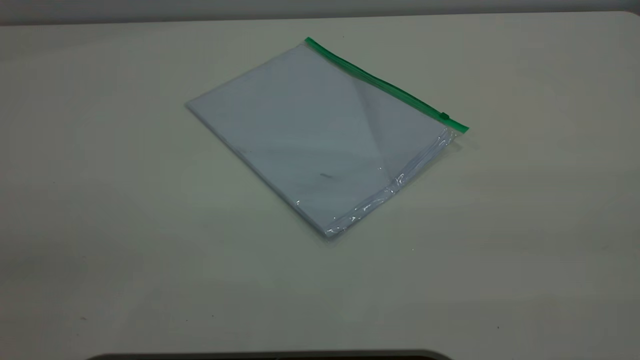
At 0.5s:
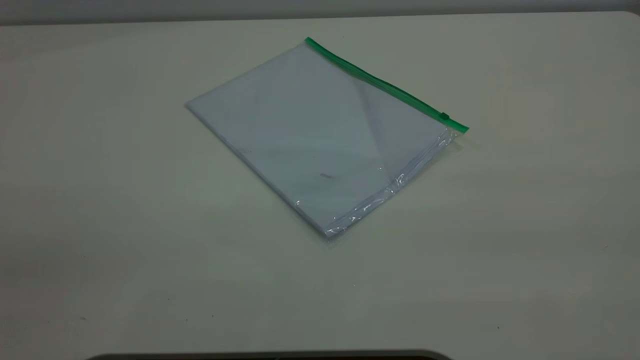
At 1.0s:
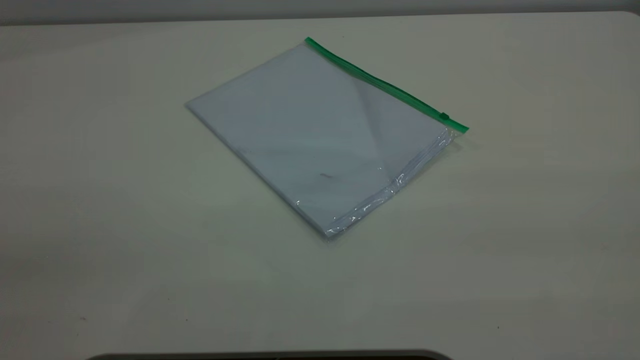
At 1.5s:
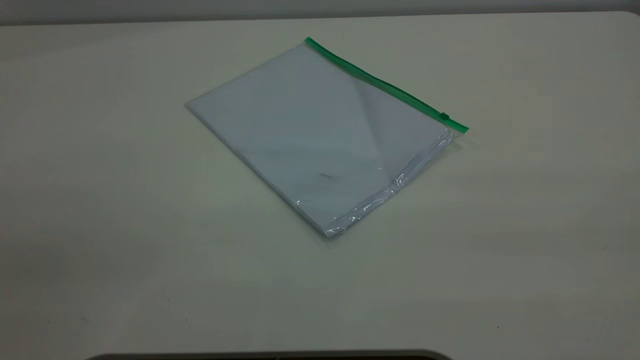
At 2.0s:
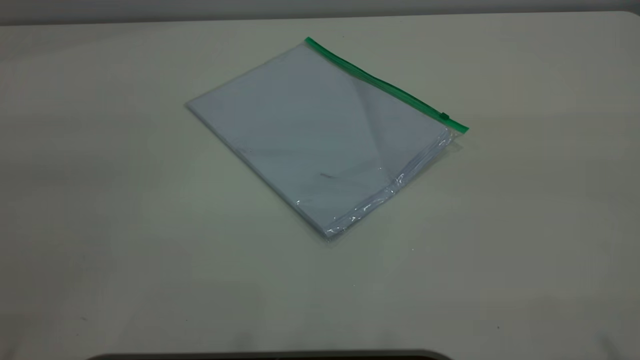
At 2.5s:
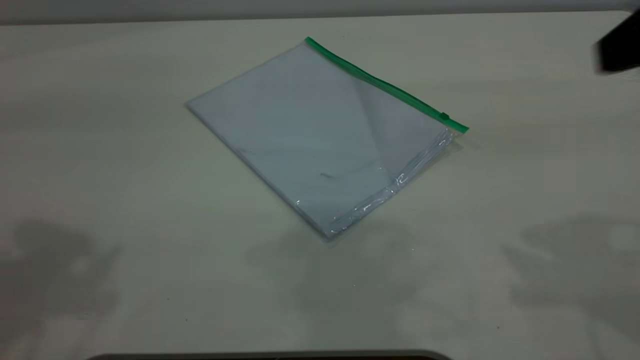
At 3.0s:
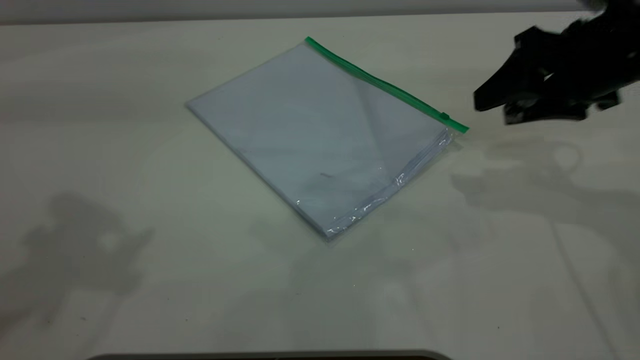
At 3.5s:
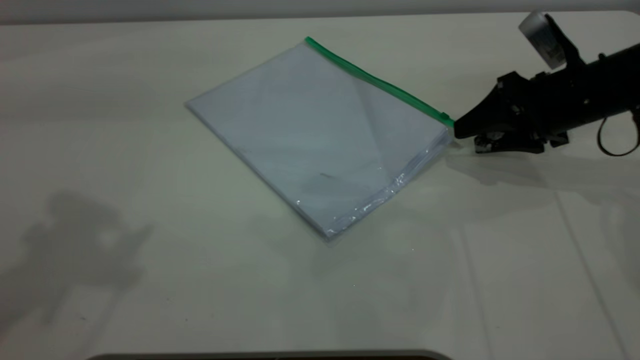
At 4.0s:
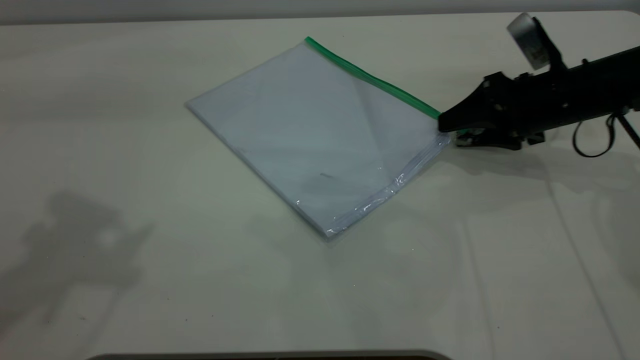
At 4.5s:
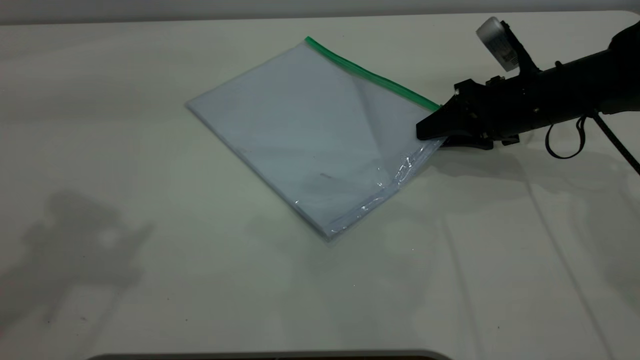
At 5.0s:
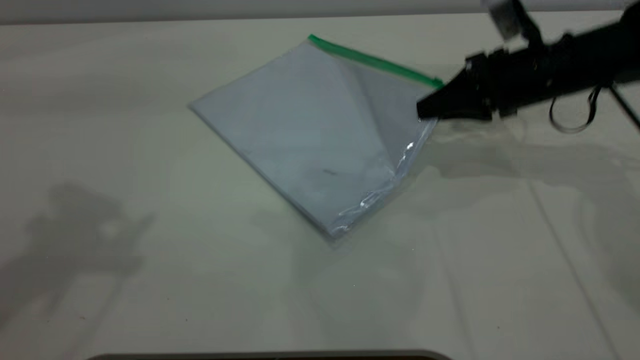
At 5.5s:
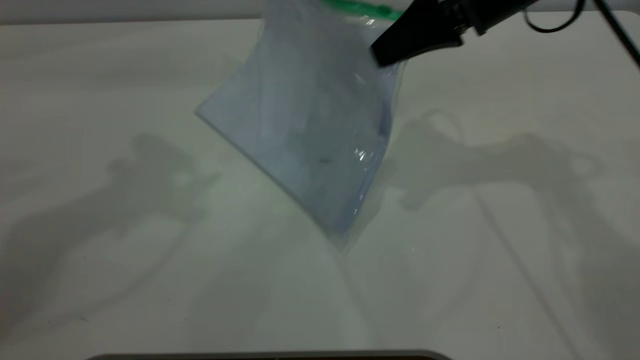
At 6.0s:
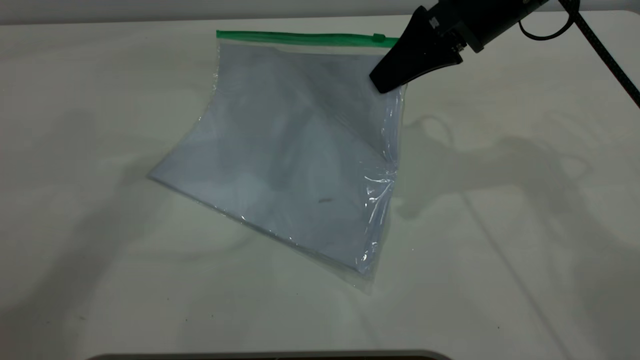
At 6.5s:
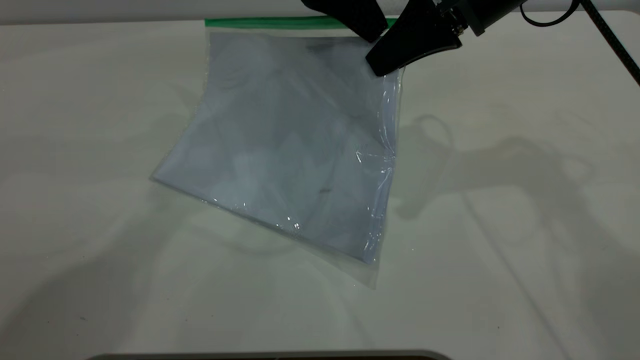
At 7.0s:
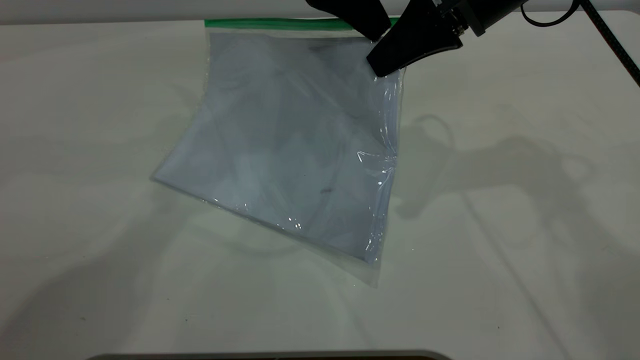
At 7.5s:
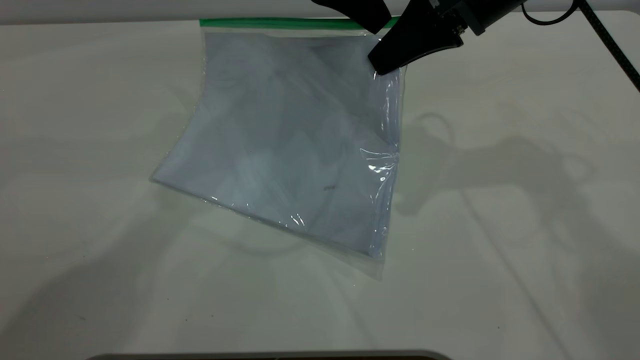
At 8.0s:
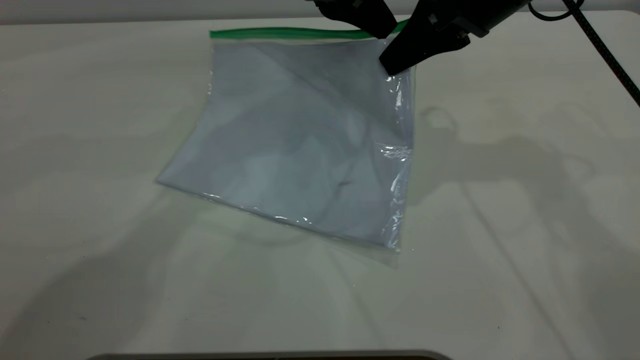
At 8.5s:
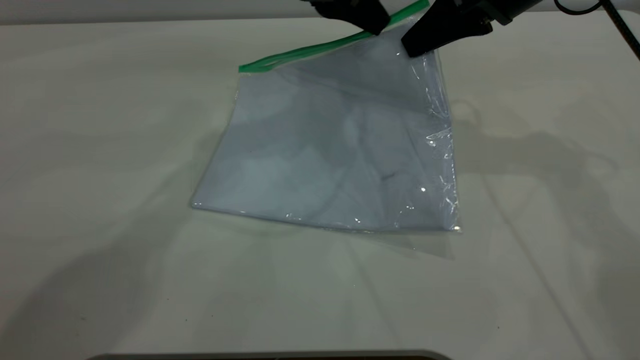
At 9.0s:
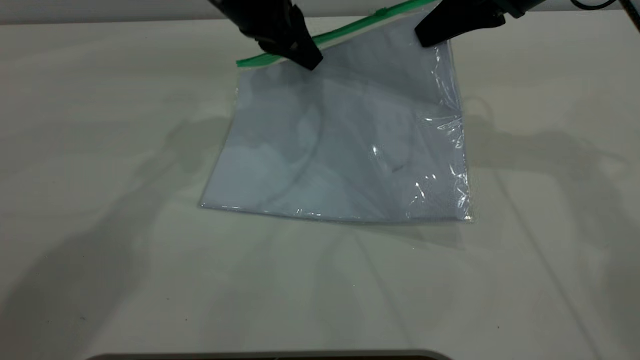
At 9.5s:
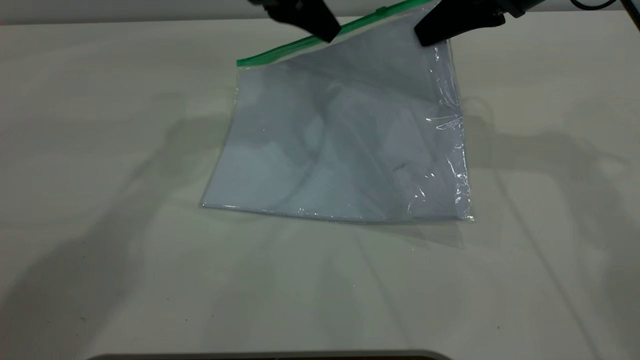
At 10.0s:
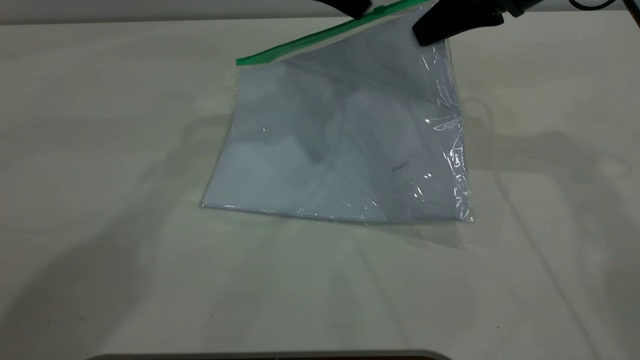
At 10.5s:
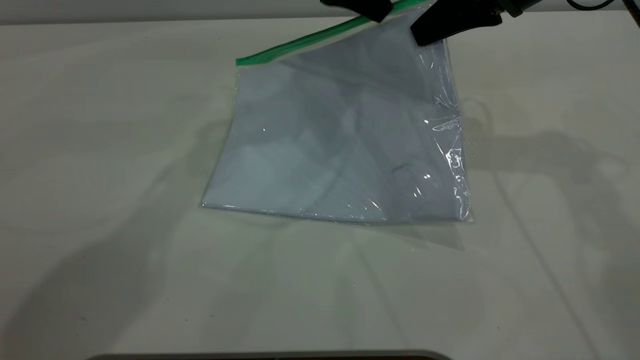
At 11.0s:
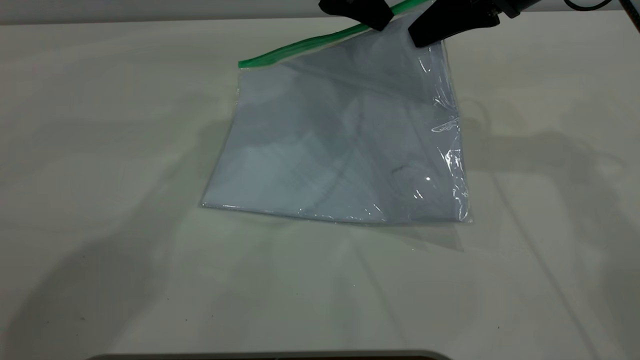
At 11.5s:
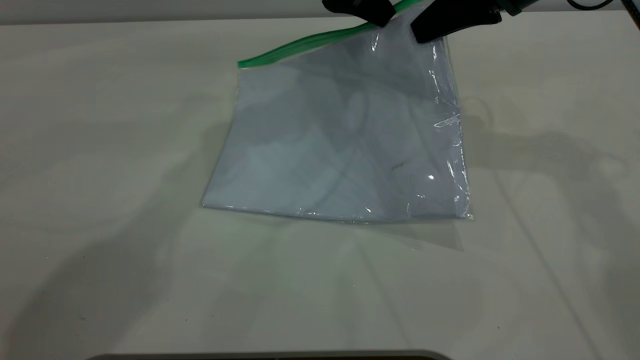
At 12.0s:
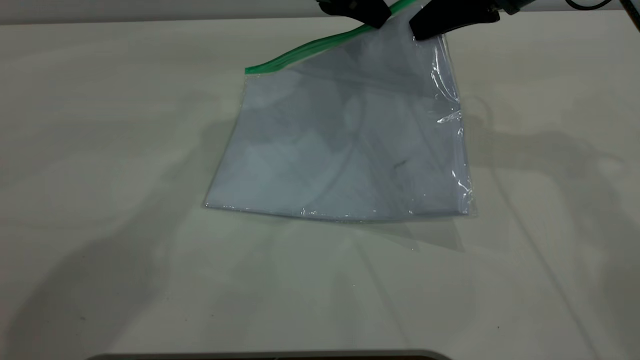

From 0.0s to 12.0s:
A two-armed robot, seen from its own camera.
Step, from 0.0s to 5.0s: Pick up the transparent plastic bag with the right gripper.
From 2.0s to 4.0s: The right gripper is displaced downward and forward by roughly 40 cm.
From 4.0s to 6.0s: The left gripper heads to the right and forward, covering some 20 cm; the right gripper goes approximately 20 cm upward and to the left, and closes.
From 6.0s to 8.0s: The left gripper travels to the right and downward by approximately 10 cm, and closes its fingers.
From 8.0s to 10.0s: The left gripper opens its fingers.
From 10.0s to 12.0s: The left gripper closes up.

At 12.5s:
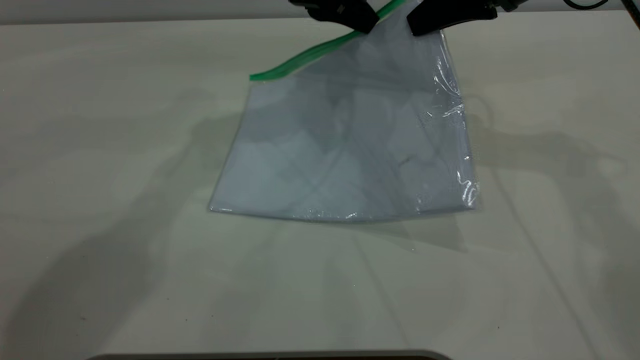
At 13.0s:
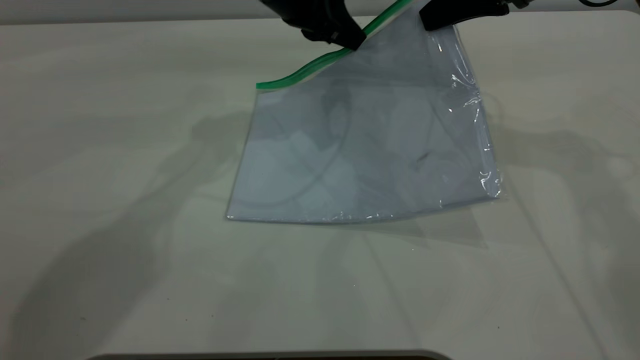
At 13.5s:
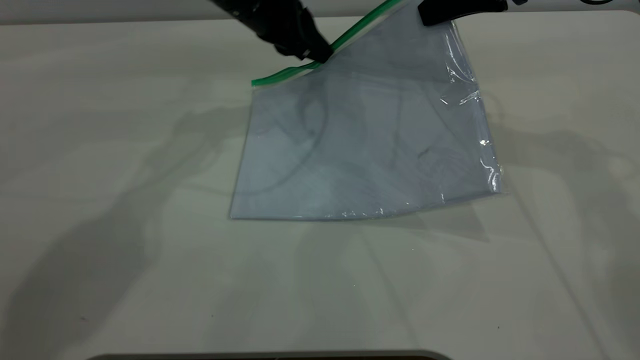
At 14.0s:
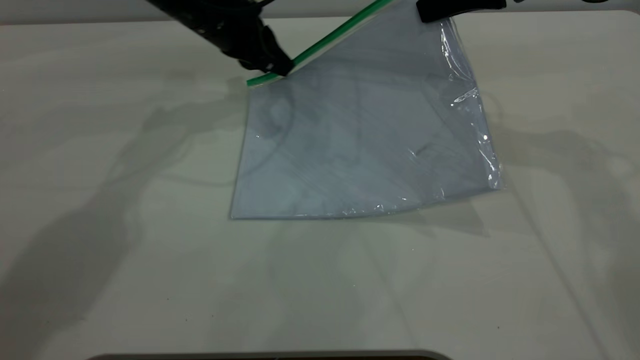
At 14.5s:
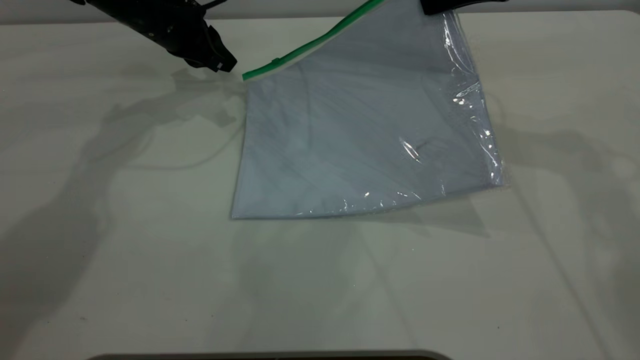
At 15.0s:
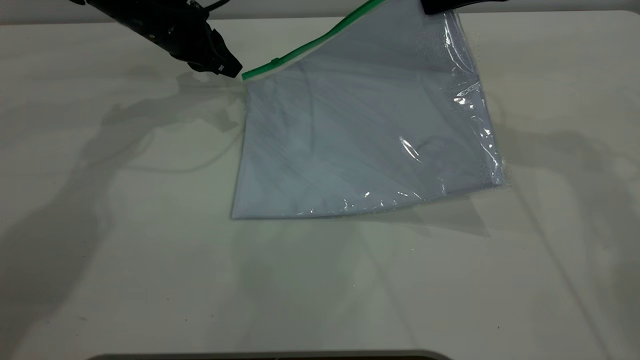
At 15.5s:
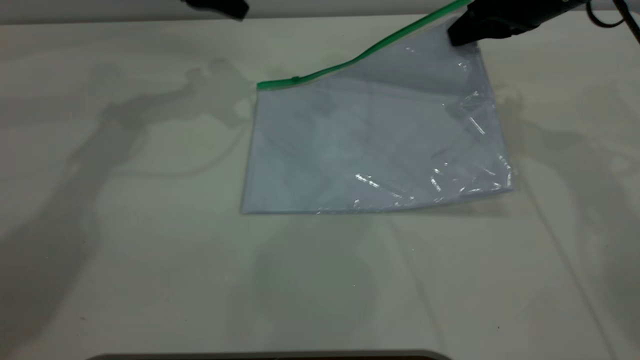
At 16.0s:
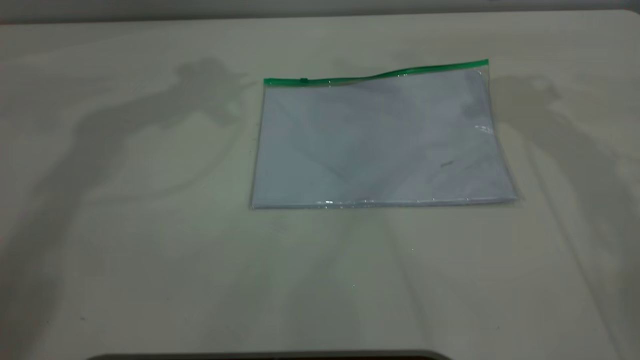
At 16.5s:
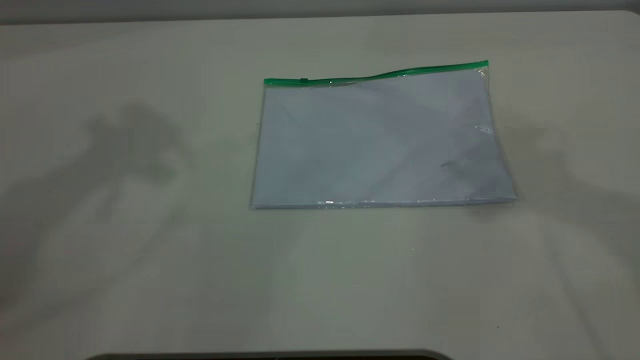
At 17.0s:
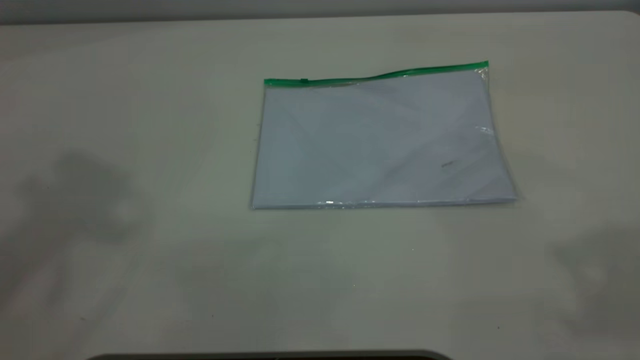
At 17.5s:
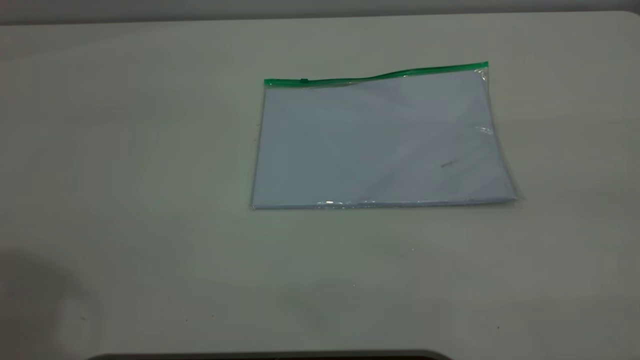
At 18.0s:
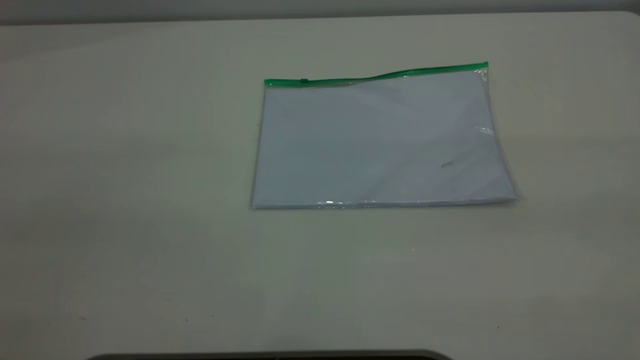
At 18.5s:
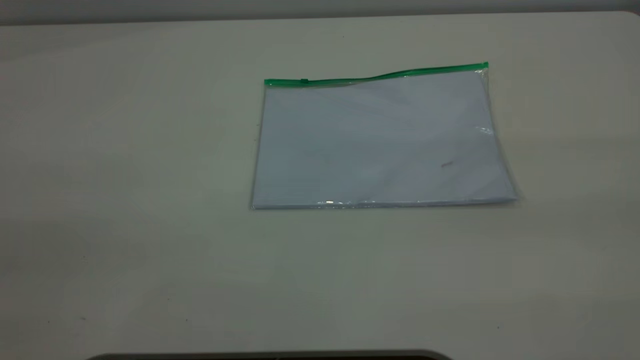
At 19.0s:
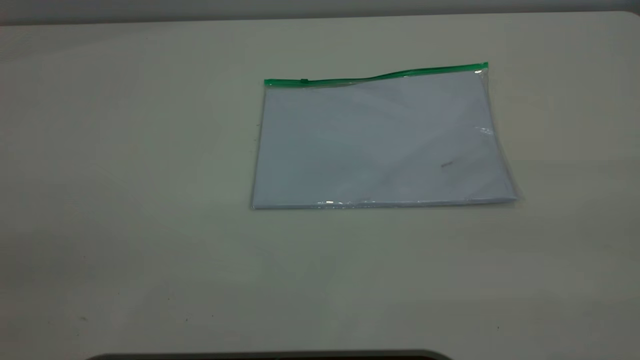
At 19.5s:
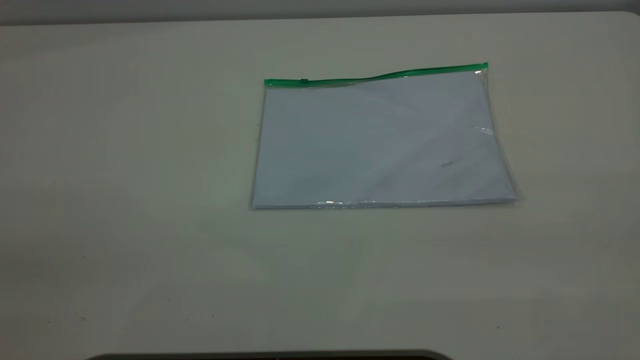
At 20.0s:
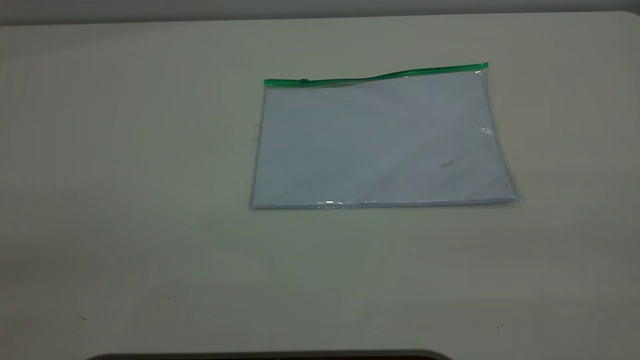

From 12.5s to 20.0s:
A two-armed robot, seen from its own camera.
Step, from 14.5s to 15.5s: Place the transparent plastic bag.
From 12.5s to 14.5s: The left gripper goes some 15 cm to the left and downward.
From 14.5s to 16.5s: The left gripper is displaced upward by some 40 cm. The right gripper heads upward and backward, covering about 25 cm, and opens up.

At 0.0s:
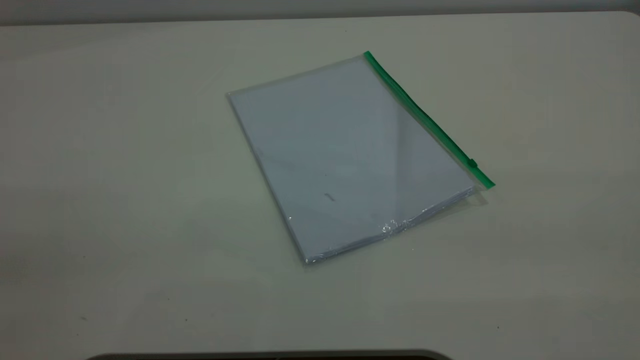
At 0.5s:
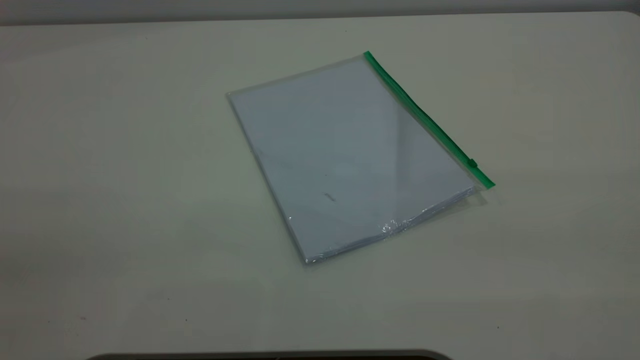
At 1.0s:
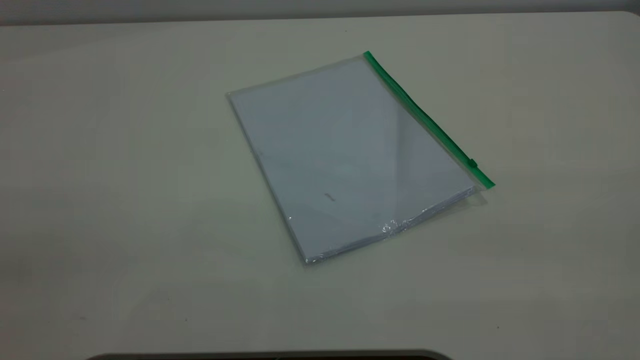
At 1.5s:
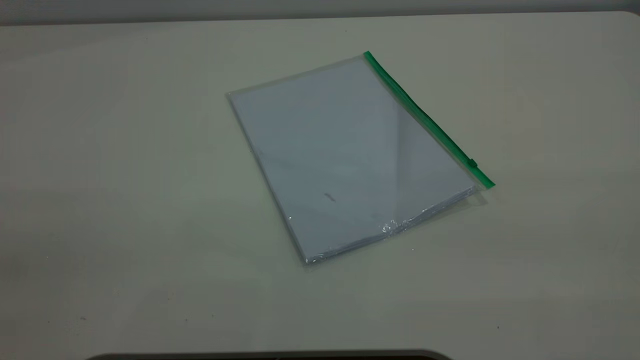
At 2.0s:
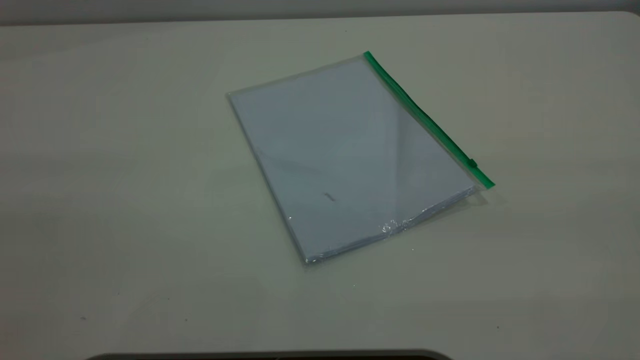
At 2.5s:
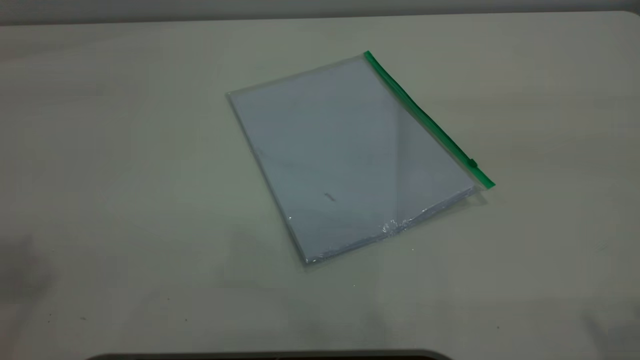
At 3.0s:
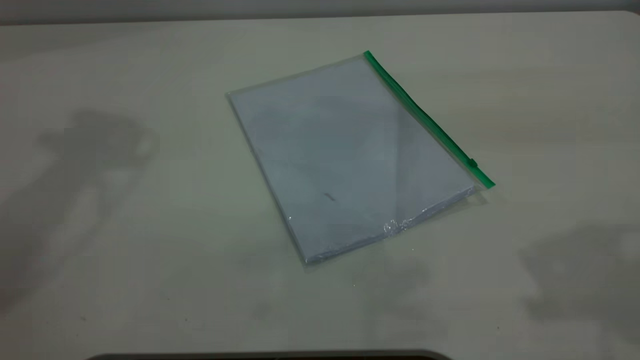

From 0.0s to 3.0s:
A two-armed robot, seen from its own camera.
From 0.0s to 1.5s: The two grippers keep their place.
